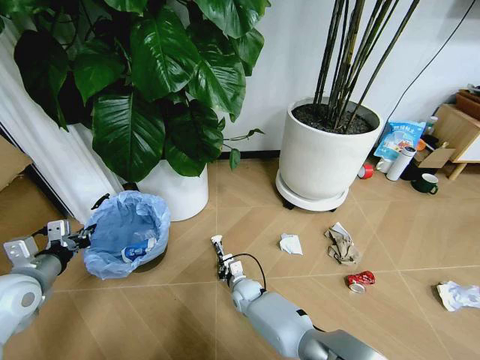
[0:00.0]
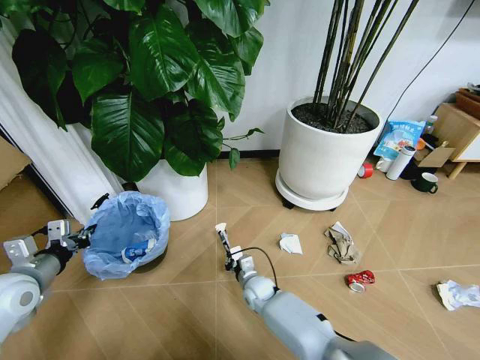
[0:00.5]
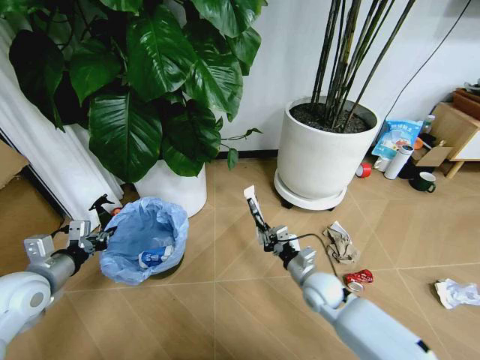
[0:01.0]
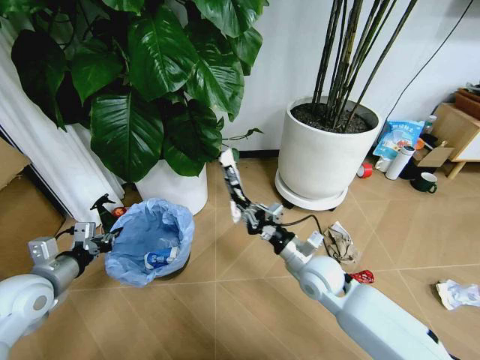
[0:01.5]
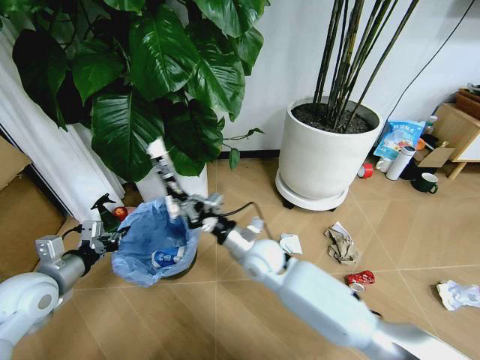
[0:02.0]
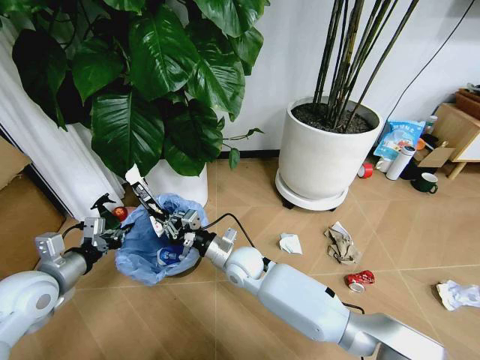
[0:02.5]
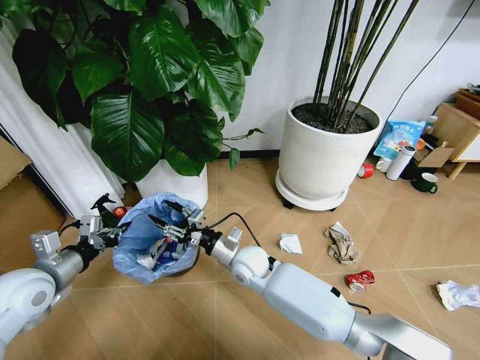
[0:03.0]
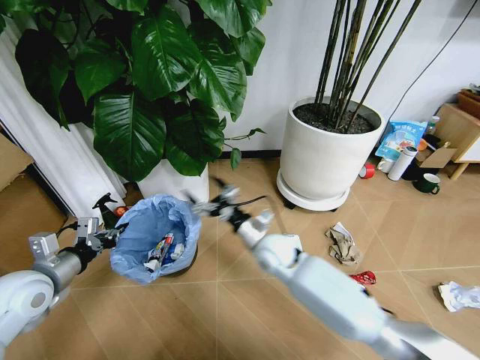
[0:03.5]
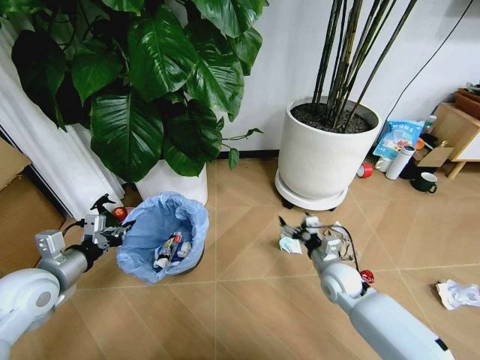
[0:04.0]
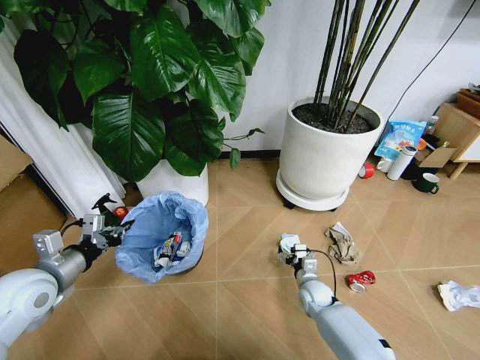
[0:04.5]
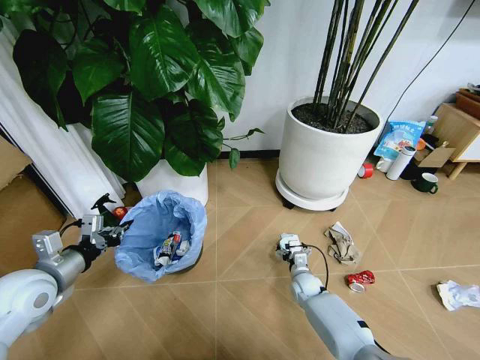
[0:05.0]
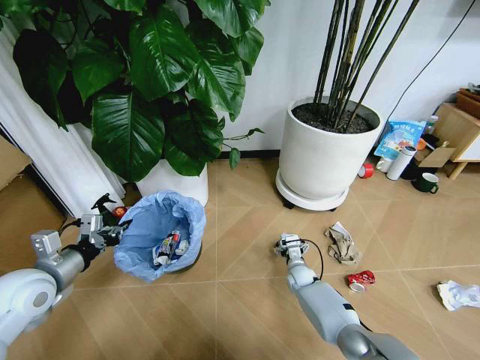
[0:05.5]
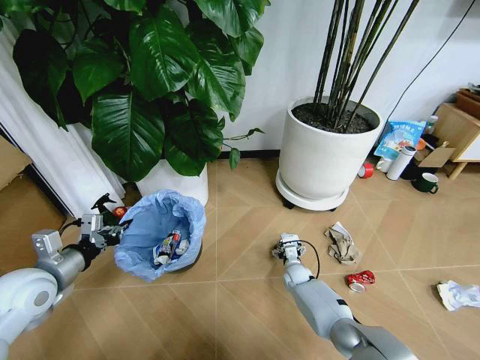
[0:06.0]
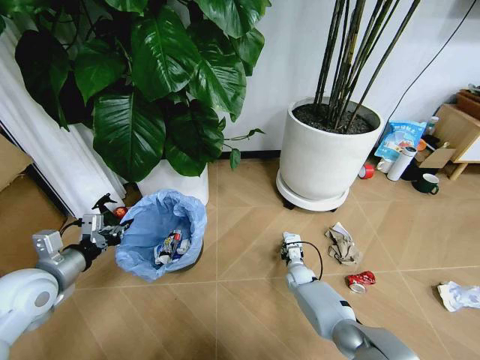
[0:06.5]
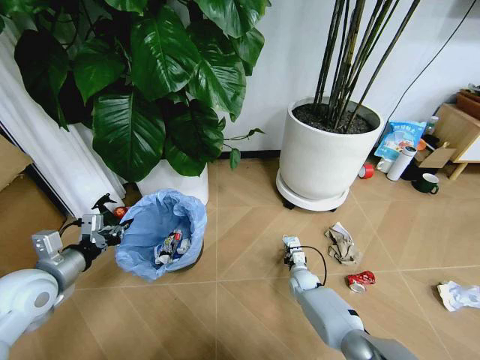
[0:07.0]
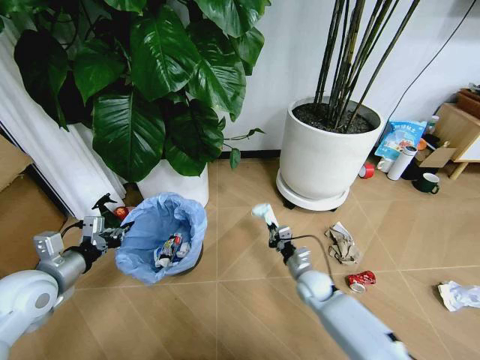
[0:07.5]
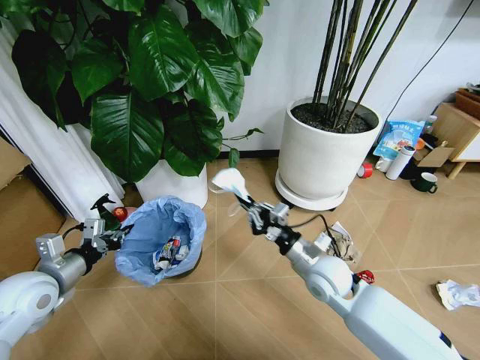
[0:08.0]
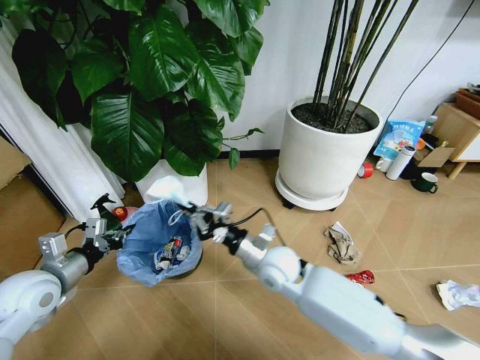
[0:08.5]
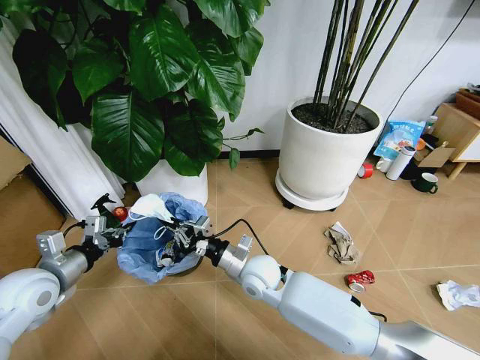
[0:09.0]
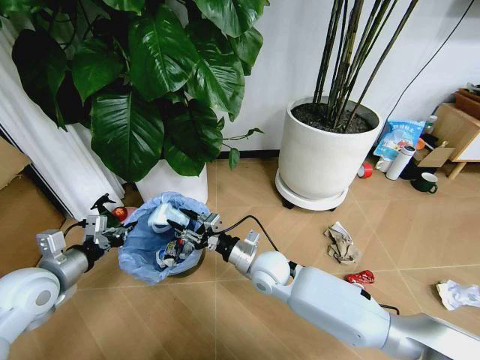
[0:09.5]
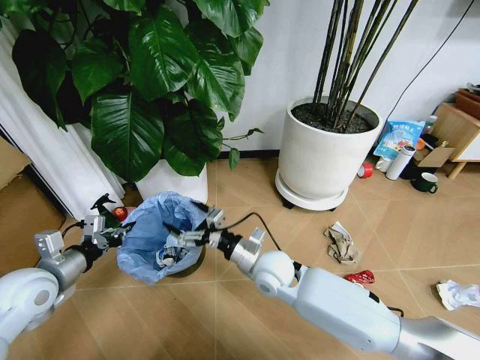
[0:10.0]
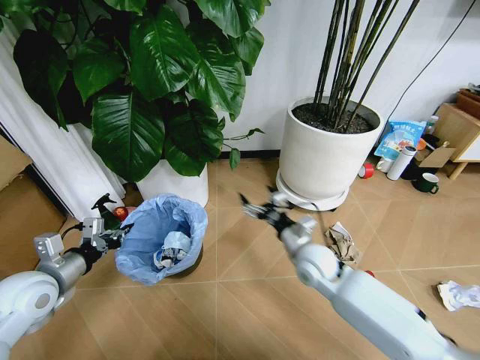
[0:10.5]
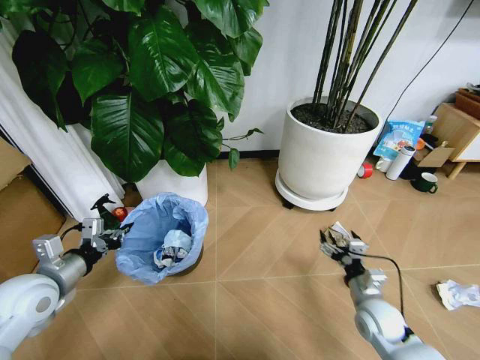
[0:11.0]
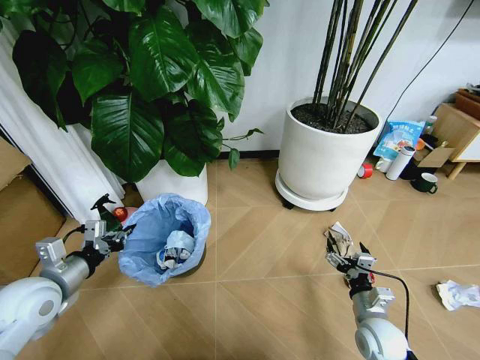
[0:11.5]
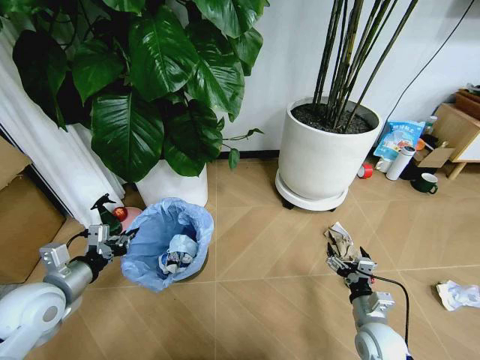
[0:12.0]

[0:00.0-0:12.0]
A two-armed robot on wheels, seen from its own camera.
Task of the whole recording: Pick up the trash bin and place the garbage on the floor into it.
0:00.0 to 0:02.0: The right gripper goes roughly 25 cm upward.
0:02.0 to 0:04.0: The right gripper moves to the right and downward, about 20 cm, and opens up.
0:04.0 to 0:06.0: The right gripper travels downward and forward by about 20 cm.
0:06.0 to 0:08.0: The right gripper shifts some 30 cm upward and backward, and closes.
0:08.0 to 0:10.0: The right gripper is displaced to the left by roughly 10 cm, and opens up.
0:10.0 to 0:12.0: The right gripper shifts some 30 cm to the right, backward and downward.

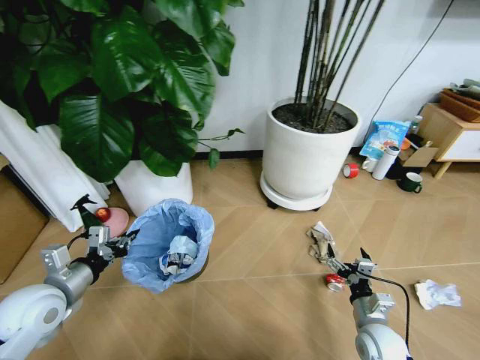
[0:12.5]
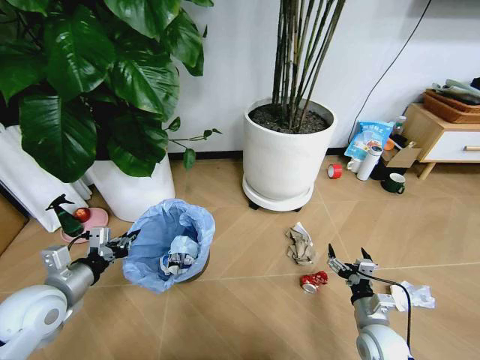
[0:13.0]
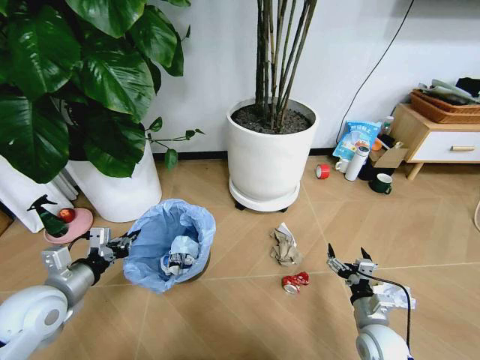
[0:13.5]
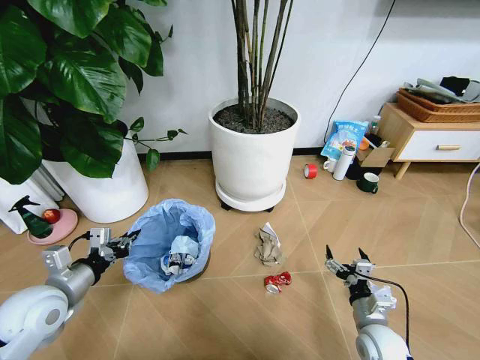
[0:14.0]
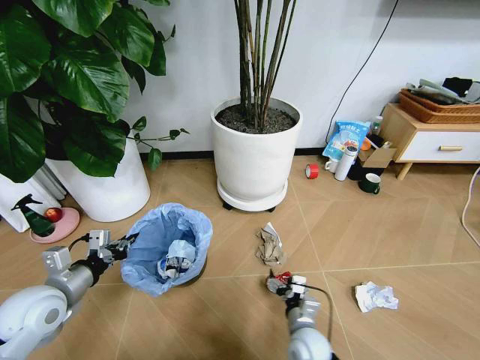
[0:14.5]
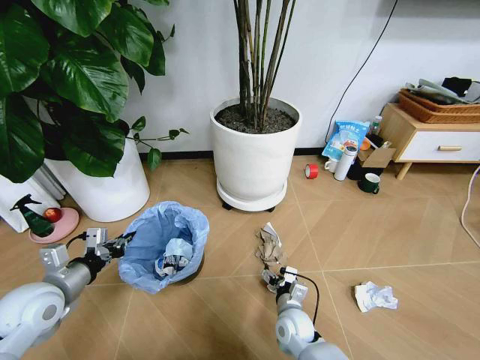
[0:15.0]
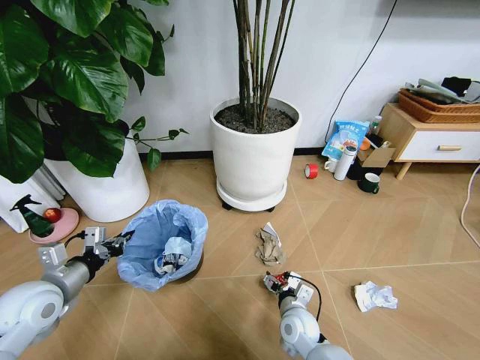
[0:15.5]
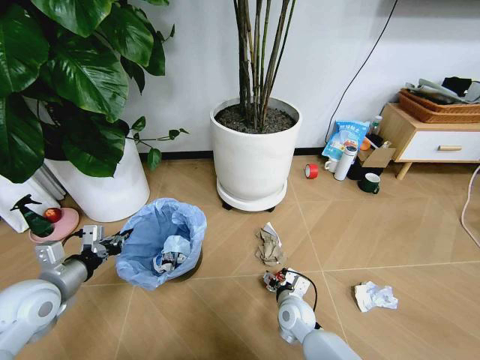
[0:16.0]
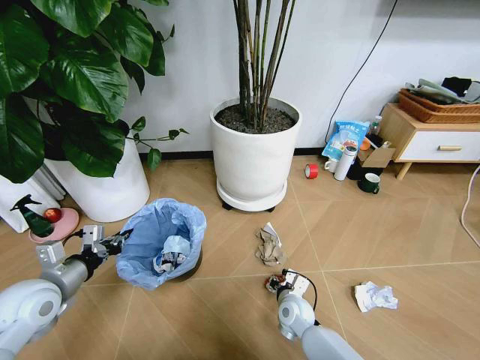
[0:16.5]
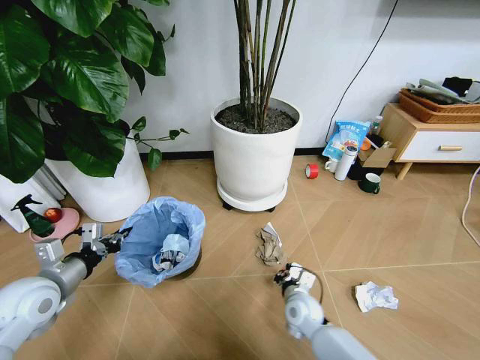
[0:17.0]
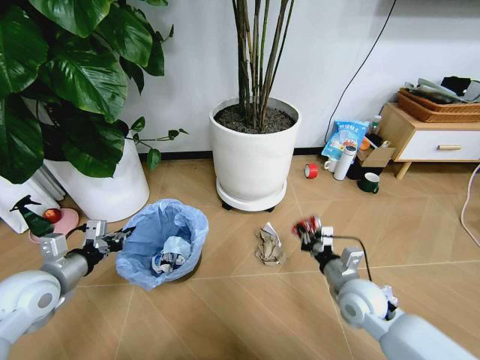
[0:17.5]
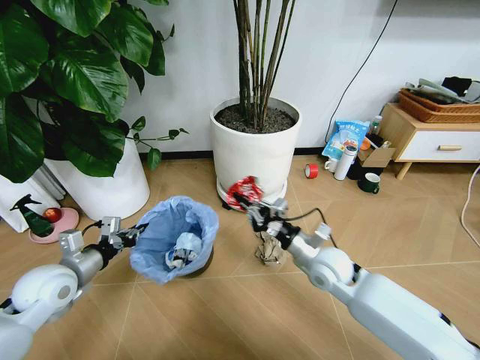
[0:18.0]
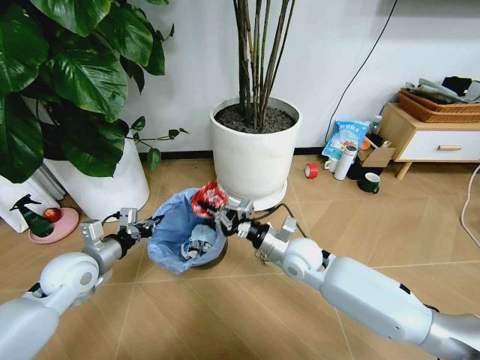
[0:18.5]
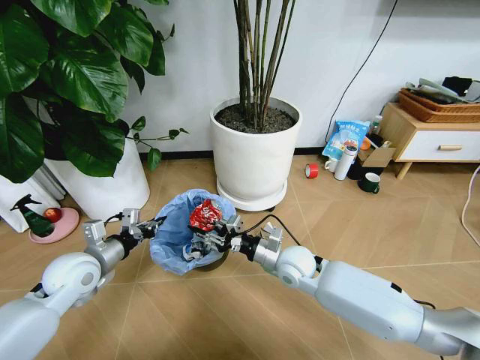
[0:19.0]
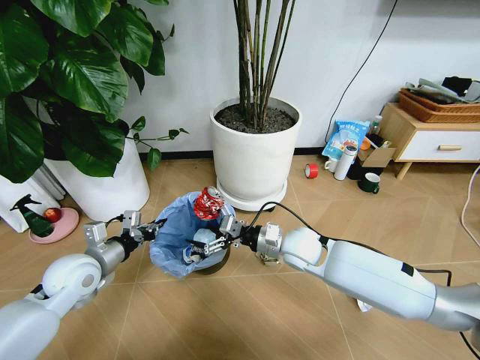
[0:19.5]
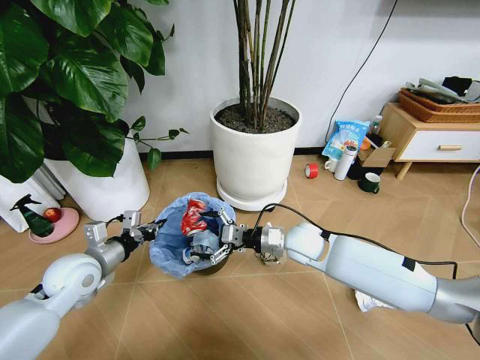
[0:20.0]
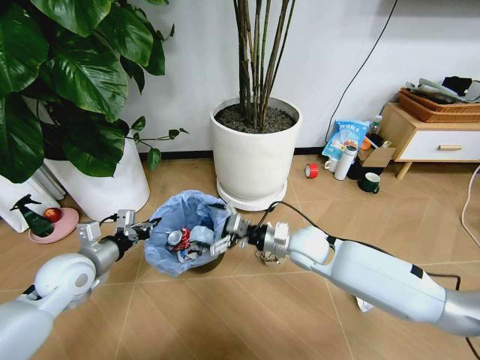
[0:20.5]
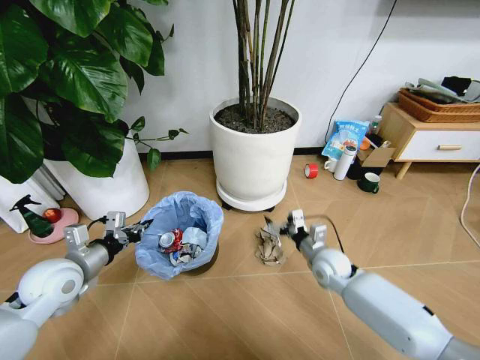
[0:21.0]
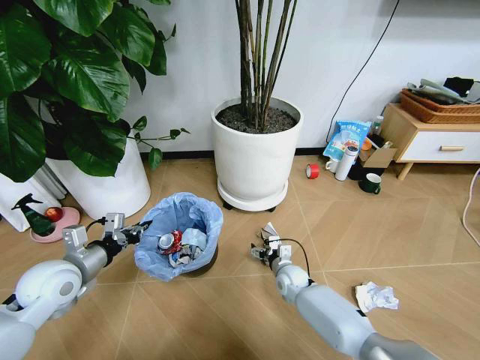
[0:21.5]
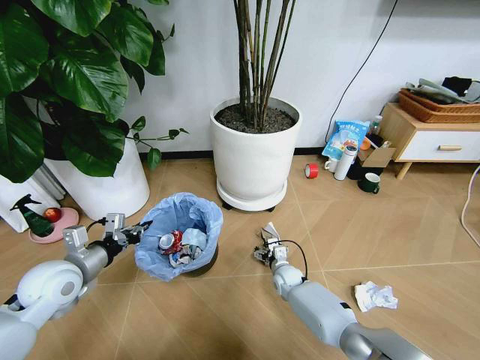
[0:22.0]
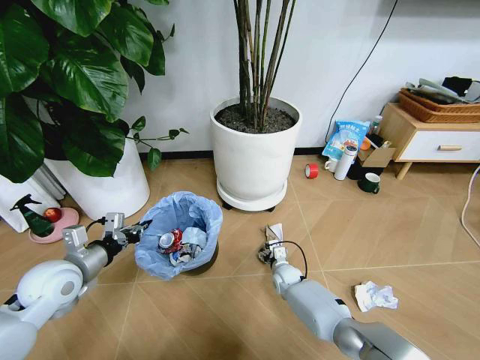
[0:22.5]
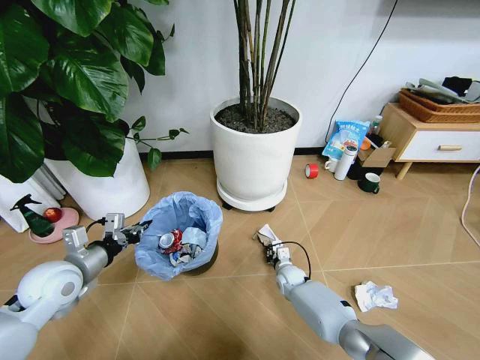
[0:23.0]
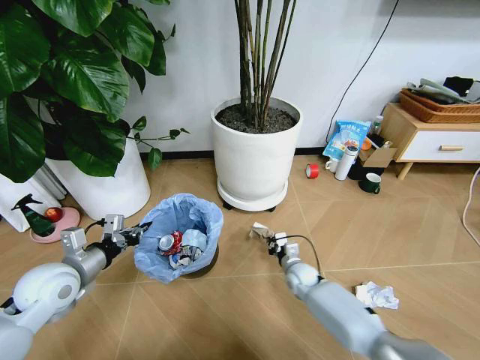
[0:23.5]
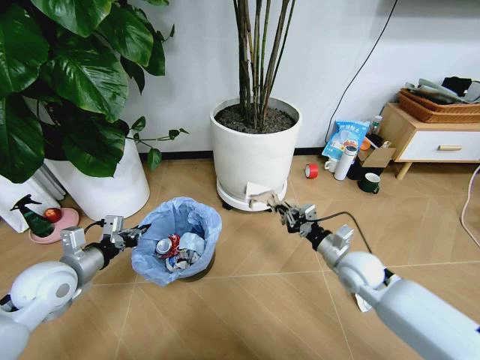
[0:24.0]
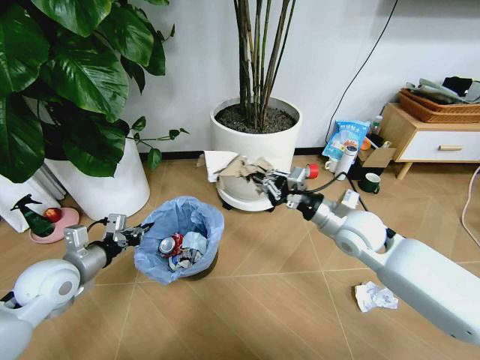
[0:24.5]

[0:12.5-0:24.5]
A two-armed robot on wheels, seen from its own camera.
Task of the whole recording: Pick up the trash bin and place the garbage on the floor into it.
0:12.5 to 0:14.5: The right gripper shifts approximately 10 cm to the left.
0:14.5 to 0:16.5: The right gripper travels forward and to the left by some 10 cm, and closes its fingers.
0:16.5 to 0:18.5: The right gripper travels upward by roughly 20 cm. The left gripper moves forward, some 5 cm.
0:18.5 to 0:20.5: The right gripper opens.
0:20.5 to 0:22.5: The right gripper shifts some 25 cm downward.
0:22.5 to 0:24.5: The right gripper shifts about 35 cm upward, and closes up.

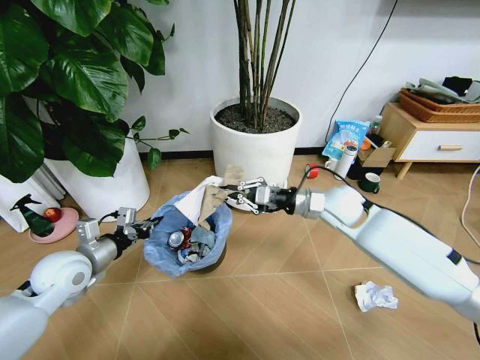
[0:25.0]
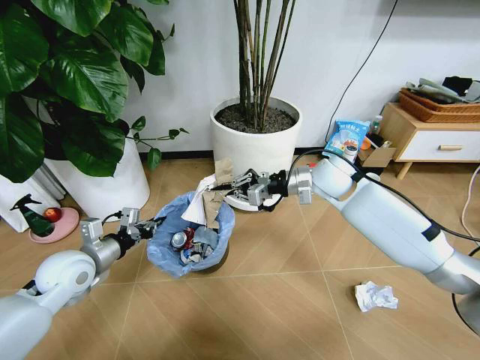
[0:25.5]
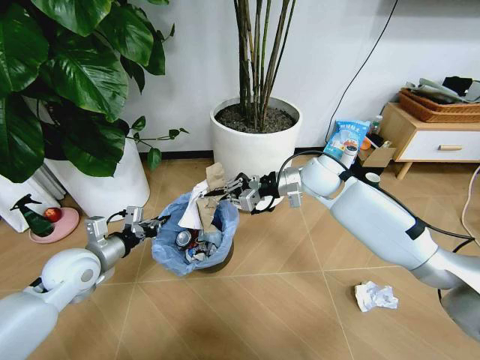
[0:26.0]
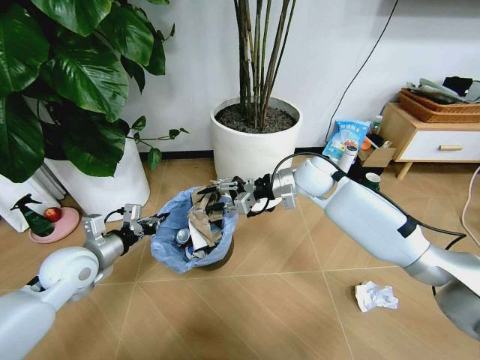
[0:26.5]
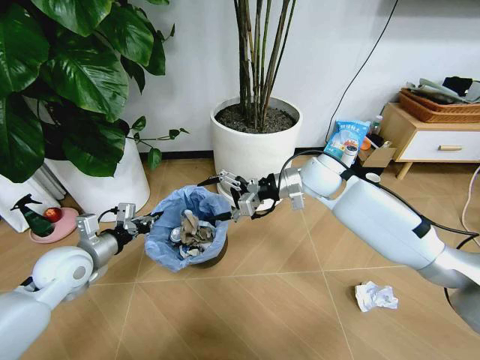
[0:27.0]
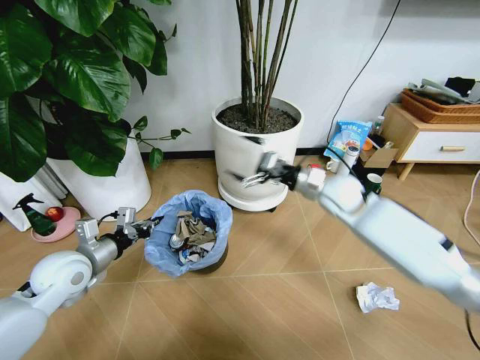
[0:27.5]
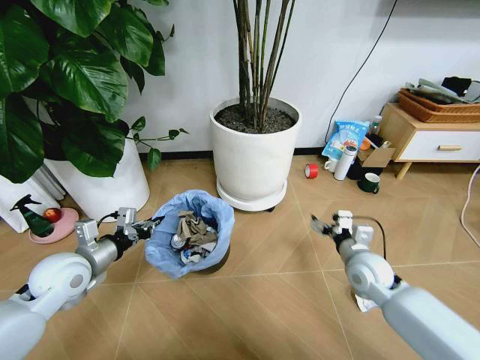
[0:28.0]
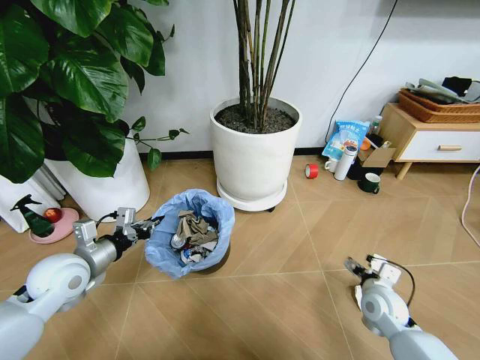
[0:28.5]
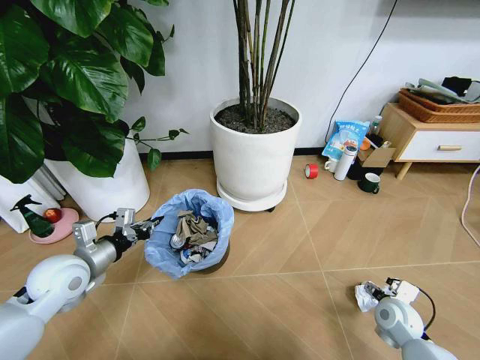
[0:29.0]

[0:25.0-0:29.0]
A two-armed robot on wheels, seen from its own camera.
Task of the whole recording: Pick up the trash bin and place the garbage on the floor into it.
0:25.0 to 0:27.0: The right gripper changes place by approximately 10 cm, and opens its fingers.
0:27.0 to 0:29.0: The right gripper heads downward, backward and to the right, covering roughly 40 cm.
